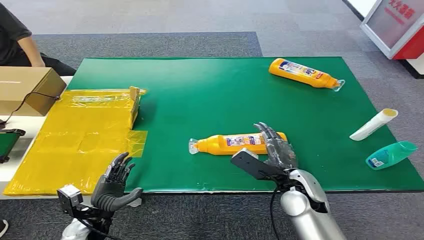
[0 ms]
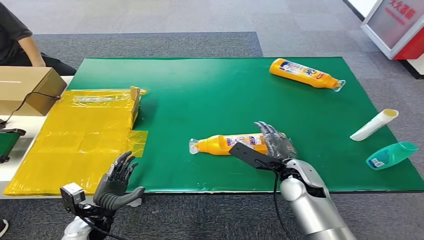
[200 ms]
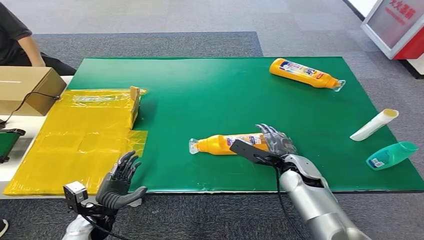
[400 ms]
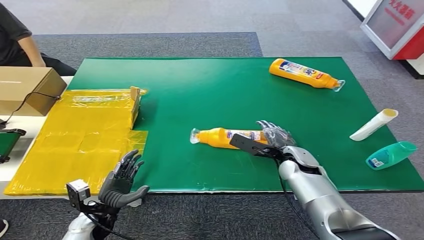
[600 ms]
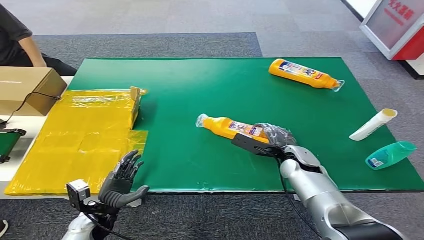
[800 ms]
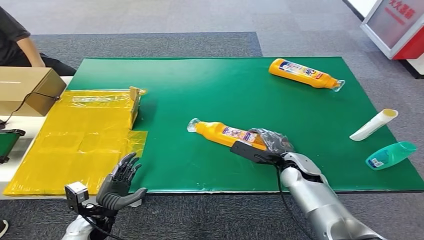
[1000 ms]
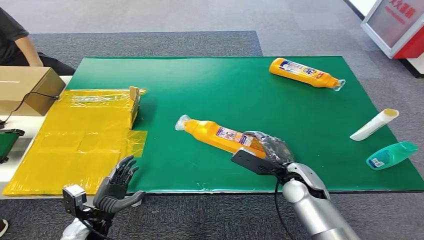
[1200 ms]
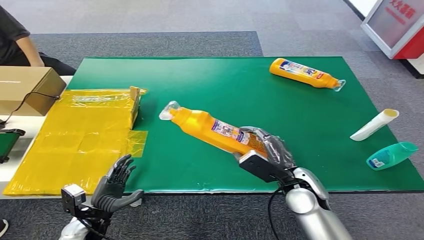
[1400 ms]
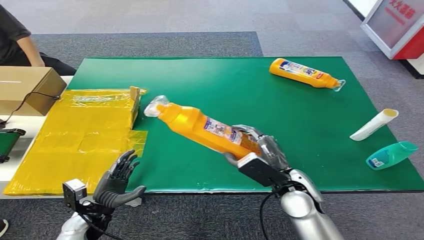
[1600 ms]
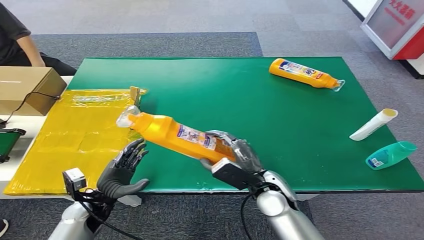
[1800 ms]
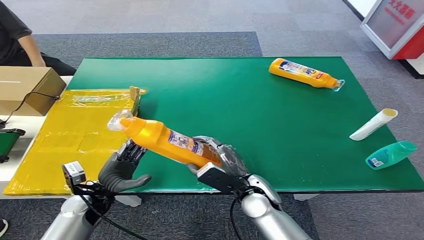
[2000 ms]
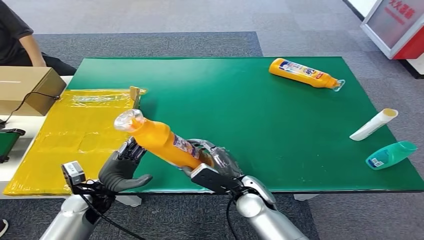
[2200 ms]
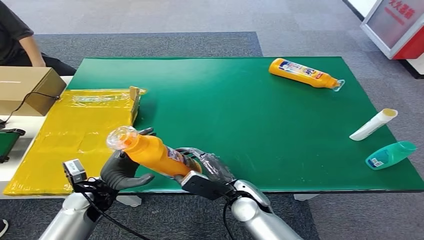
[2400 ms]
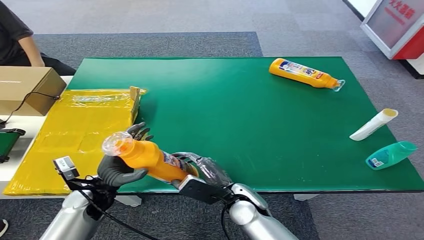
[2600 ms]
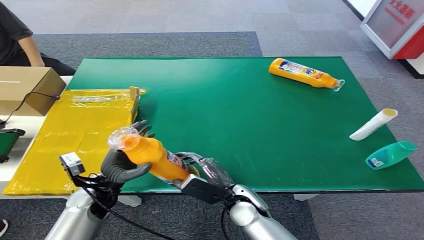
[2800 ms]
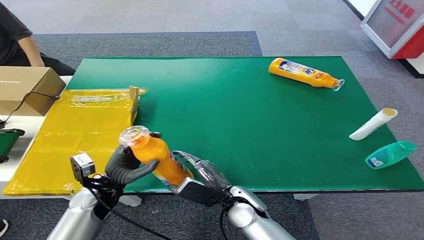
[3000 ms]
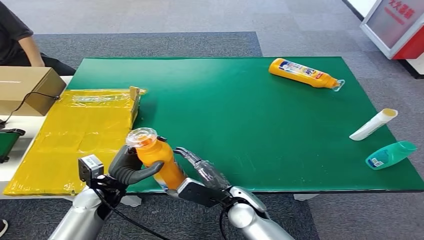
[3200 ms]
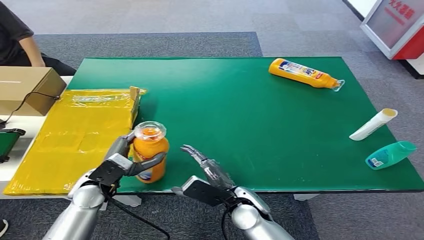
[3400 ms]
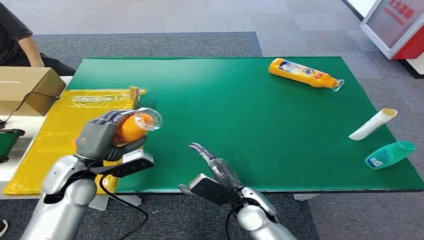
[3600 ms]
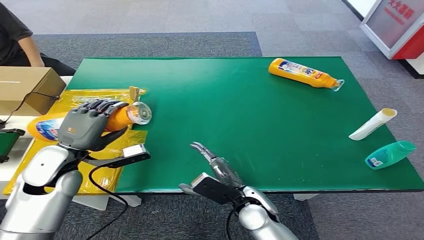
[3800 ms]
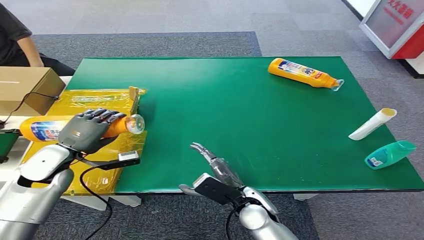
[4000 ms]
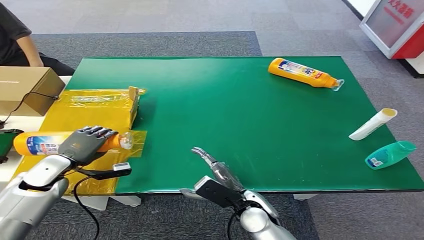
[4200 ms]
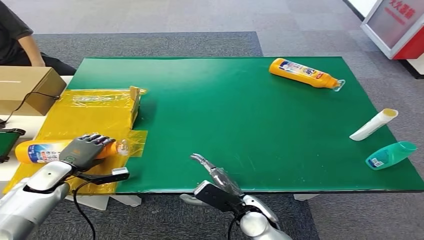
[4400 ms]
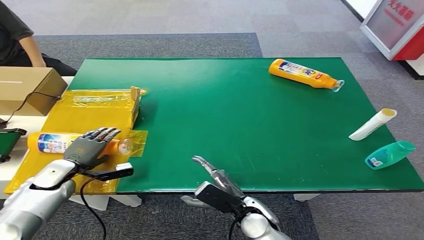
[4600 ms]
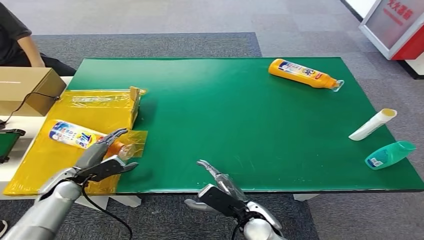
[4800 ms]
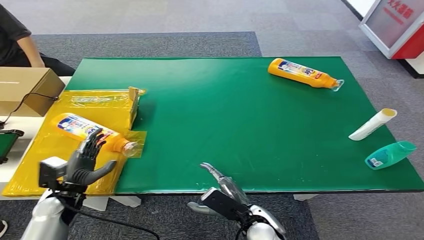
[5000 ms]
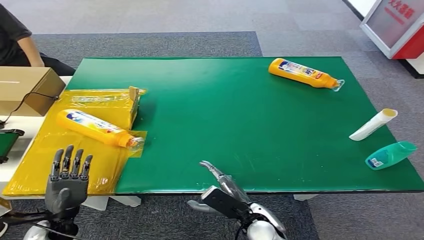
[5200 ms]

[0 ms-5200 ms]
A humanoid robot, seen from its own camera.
Step, 0 ms to 1600 ms: Pick up the bottle from the table.
Step, 1800 ms to 5200 ms: Turn the bottle to the front side.
1800 ms to 3400 ms: The left hand moves upward, approximately 5 cm, while the right hand heads to the left, covering about 5 cm.
3400 ms to 5200 ms: The left hand goes some 15 cm to the left, downward and backward, while the right hand changes place by about 5 cm.

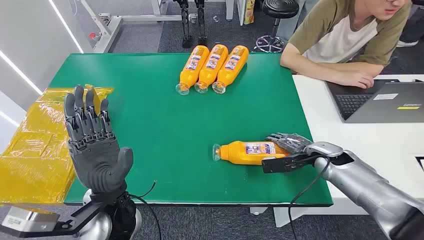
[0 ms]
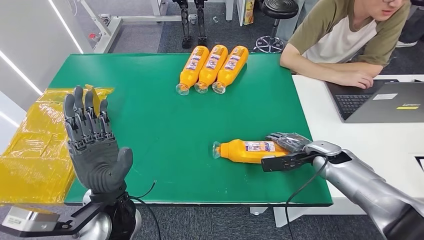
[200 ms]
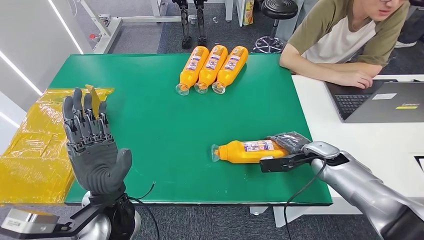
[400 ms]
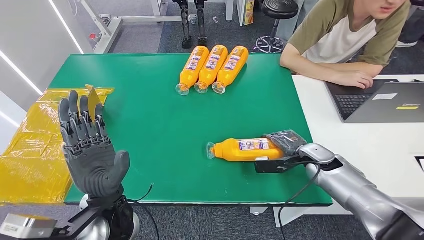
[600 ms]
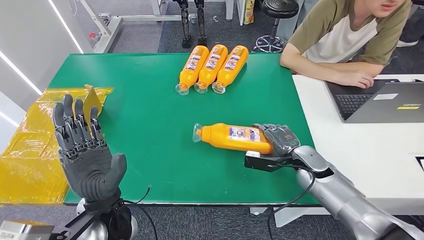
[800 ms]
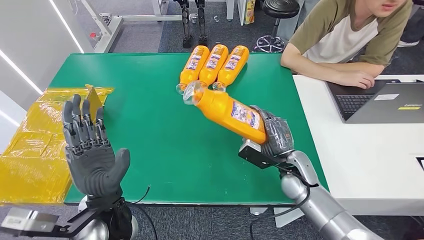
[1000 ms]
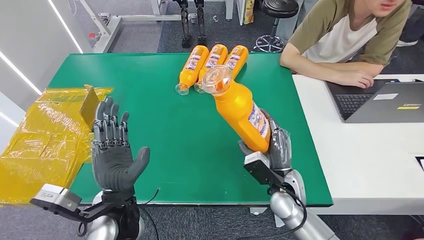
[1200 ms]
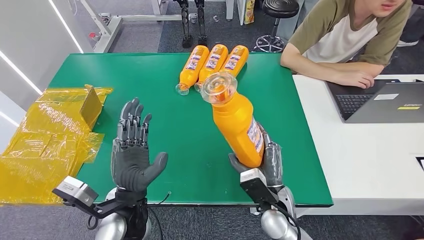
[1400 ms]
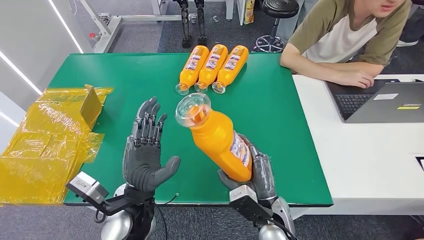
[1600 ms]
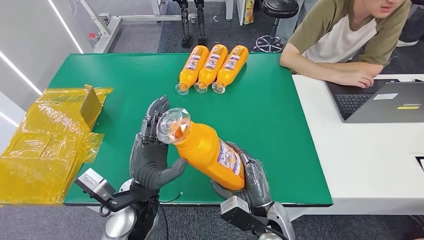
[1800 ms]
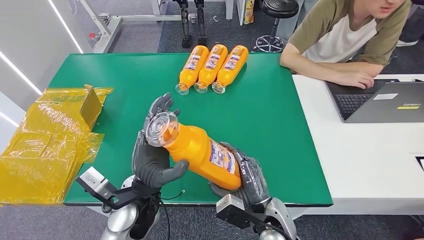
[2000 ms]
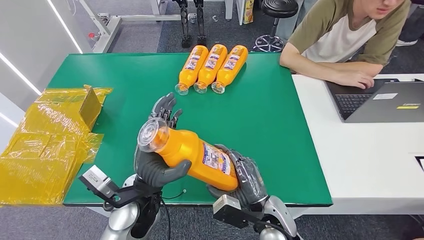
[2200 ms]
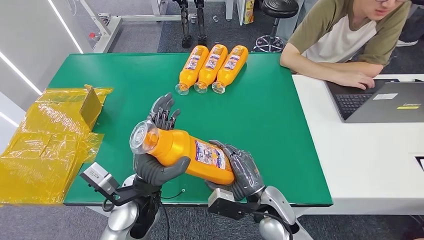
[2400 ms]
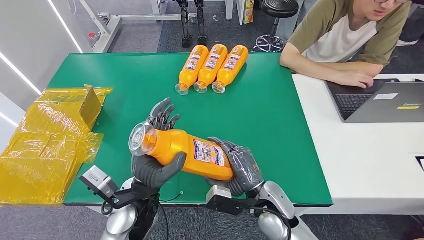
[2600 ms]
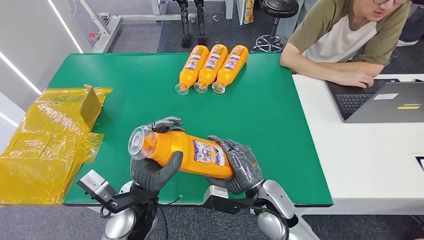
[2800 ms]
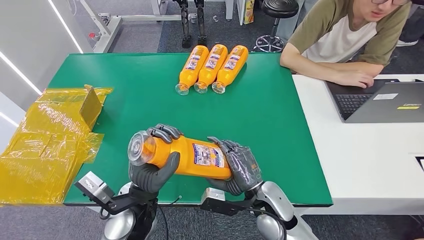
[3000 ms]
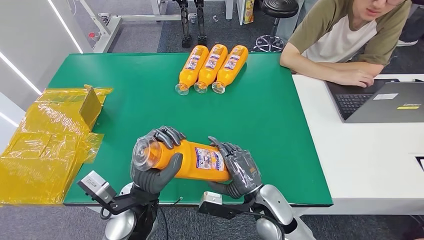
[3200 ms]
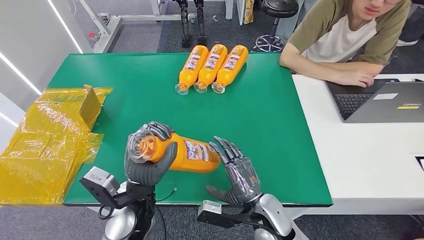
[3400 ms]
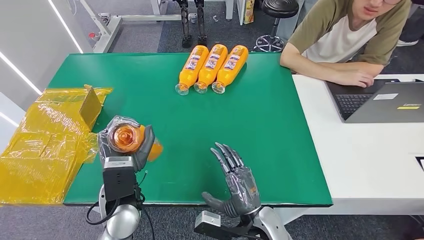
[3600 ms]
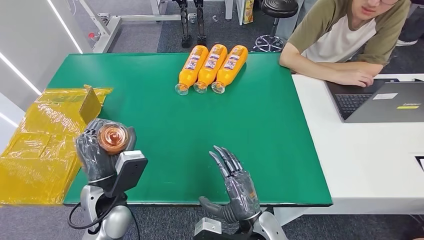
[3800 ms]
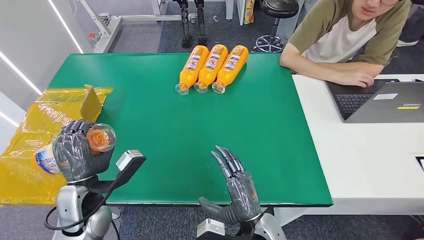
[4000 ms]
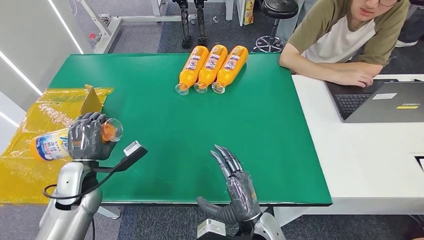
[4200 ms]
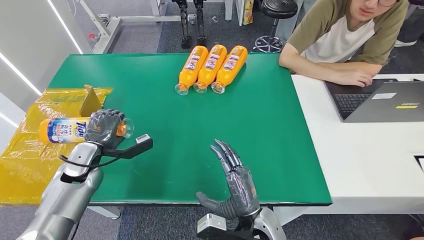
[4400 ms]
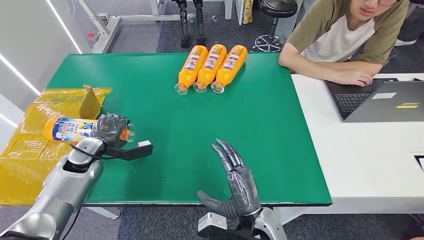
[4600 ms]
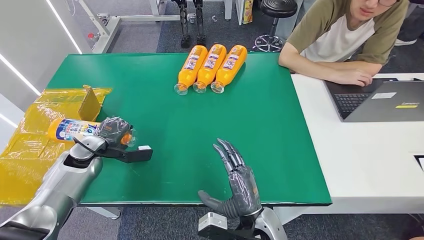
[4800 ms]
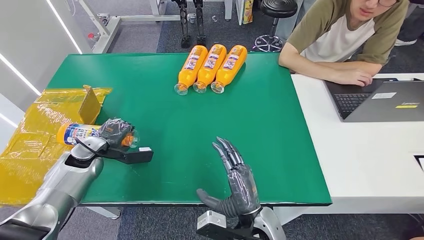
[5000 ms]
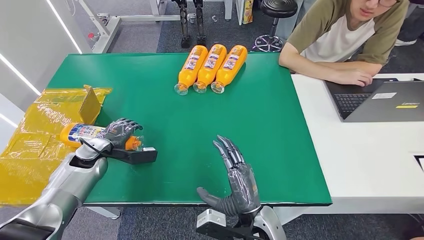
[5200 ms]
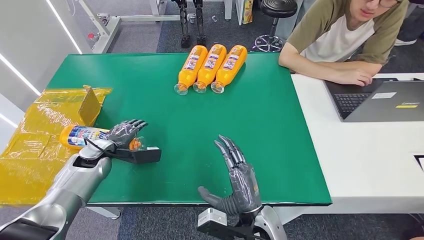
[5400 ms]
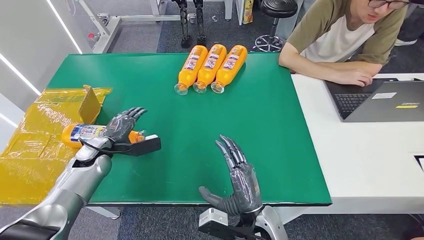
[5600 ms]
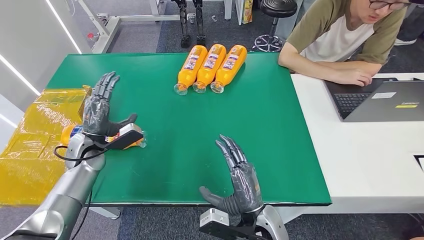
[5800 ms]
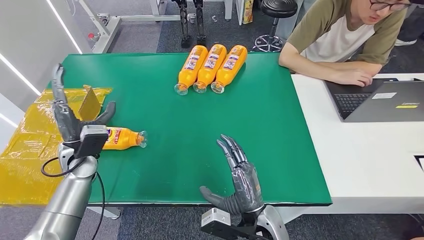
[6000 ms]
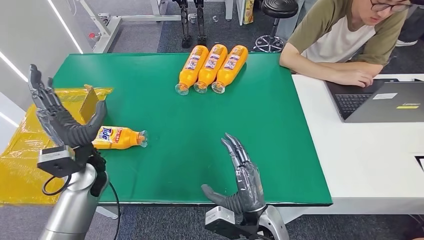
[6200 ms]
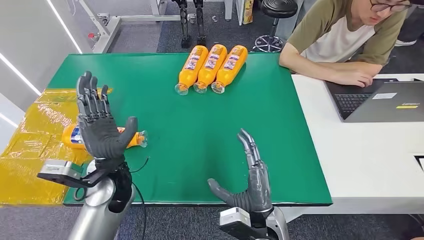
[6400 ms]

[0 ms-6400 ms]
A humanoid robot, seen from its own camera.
Step, 0 ms to 1600 ms: Pick up the bottle from the table.
Step, 1800 ms to 6200 ms: Turn the bottle to the front side.
4800 ms to 6400 ms: The left hand moves to the right, about 20 cm.

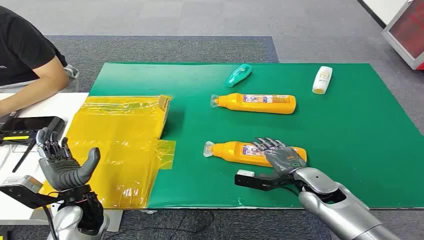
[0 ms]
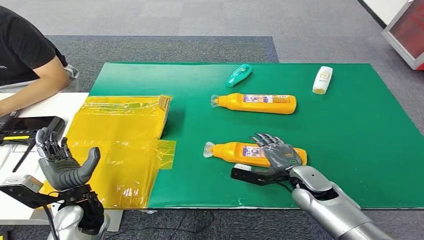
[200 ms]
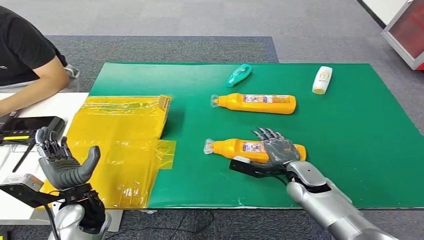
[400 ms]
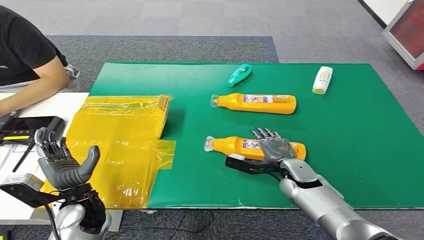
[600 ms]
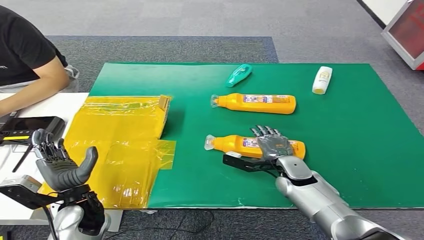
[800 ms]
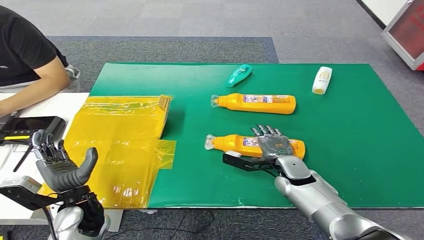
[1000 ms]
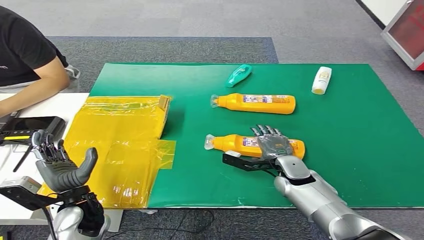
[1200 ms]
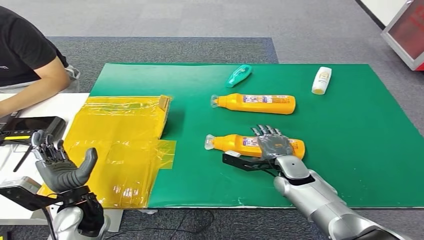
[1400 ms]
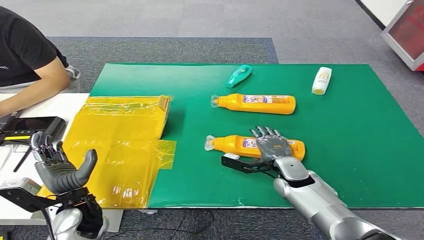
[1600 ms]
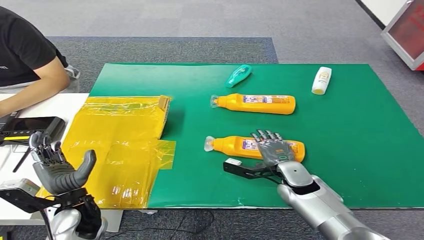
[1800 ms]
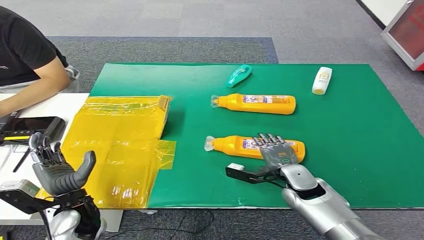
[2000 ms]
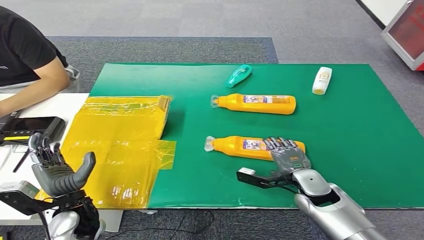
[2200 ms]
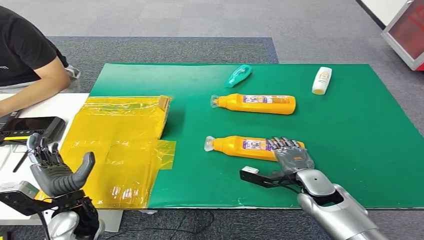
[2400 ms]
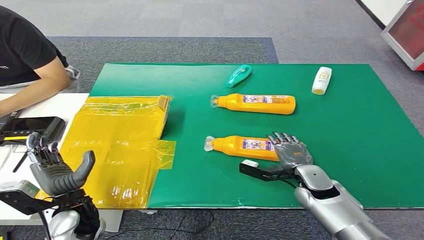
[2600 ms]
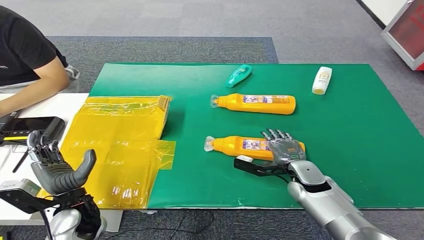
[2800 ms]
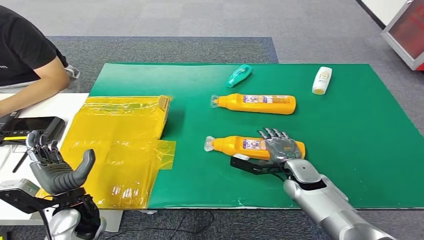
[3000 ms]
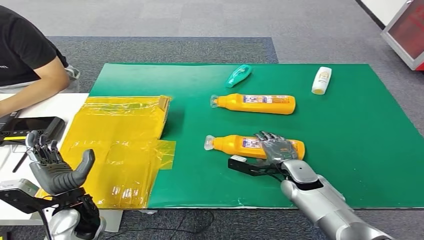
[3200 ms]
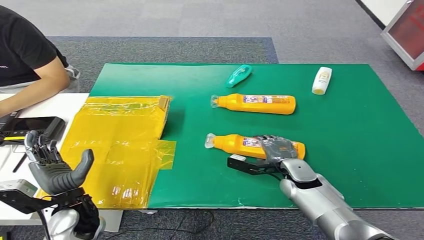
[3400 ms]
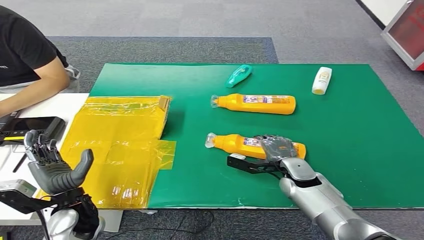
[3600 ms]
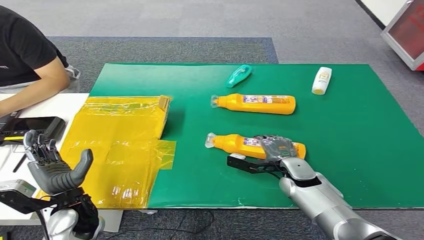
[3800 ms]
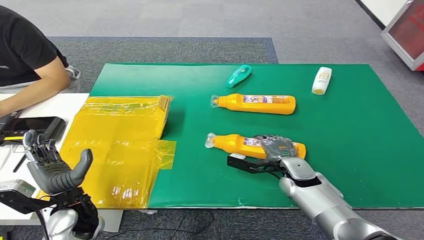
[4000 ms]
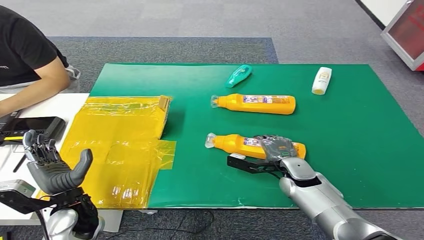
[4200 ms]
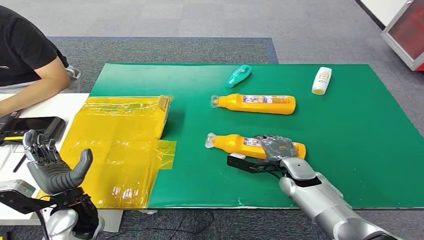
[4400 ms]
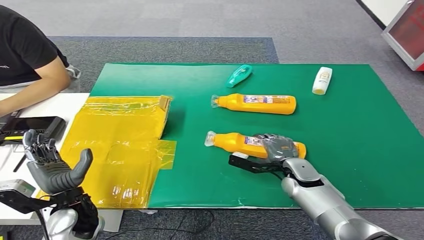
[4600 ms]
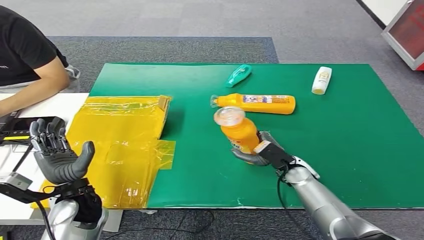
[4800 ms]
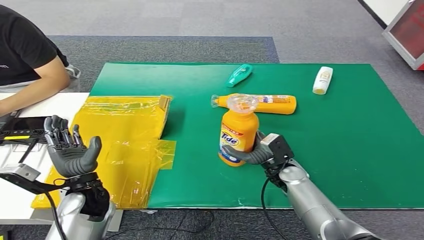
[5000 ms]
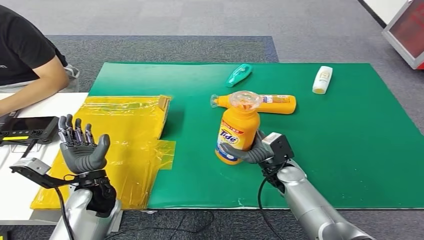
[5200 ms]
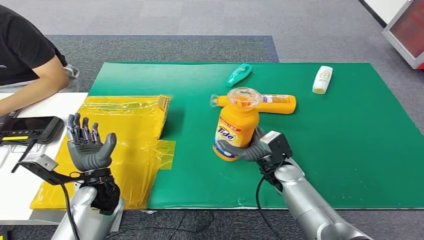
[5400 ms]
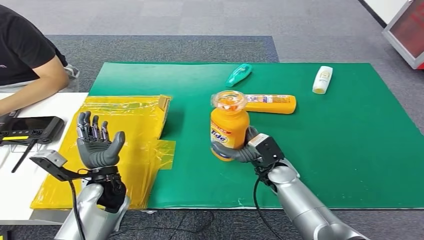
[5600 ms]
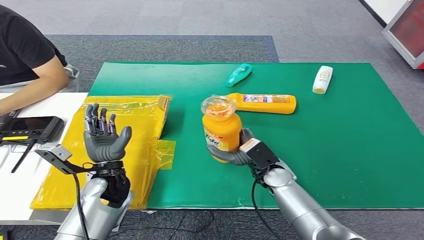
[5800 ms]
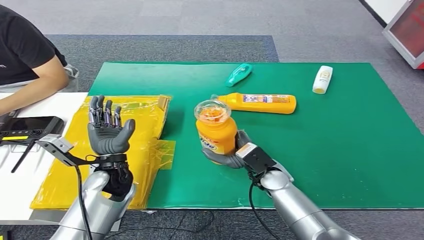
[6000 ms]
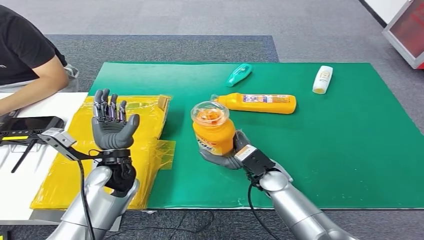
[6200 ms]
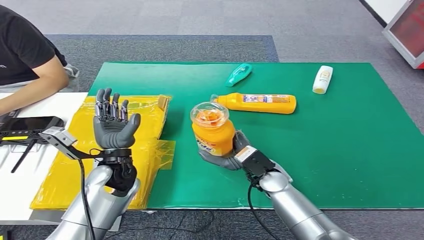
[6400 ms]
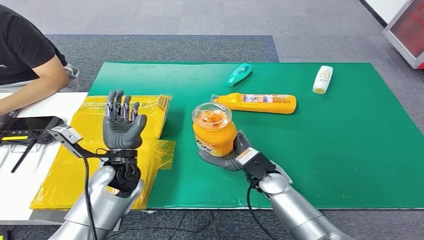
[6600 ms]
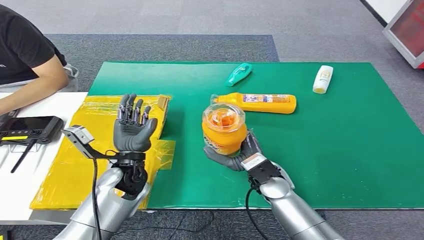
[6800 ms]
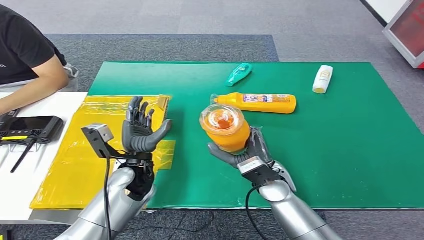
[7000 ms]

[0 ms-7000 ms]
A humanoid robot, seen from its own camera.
Step, 0 ms to 5800 ms: Pick up the bottle from the table.
2800 ms to 4200 ms: The hands move only a little.
5600 ms to 7000 ms: The left hand moves to the right, some 5 cm. The right hand moves some 5 cm.
